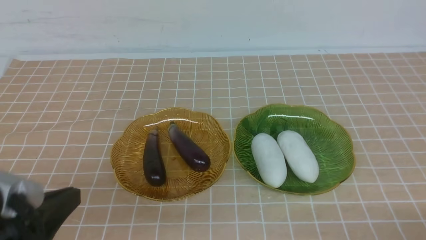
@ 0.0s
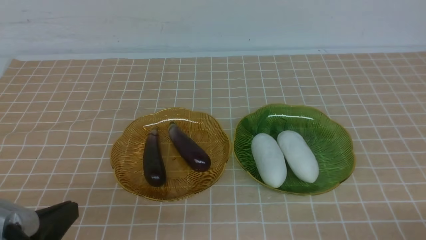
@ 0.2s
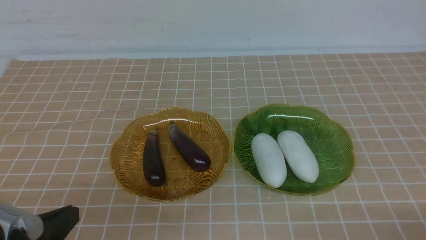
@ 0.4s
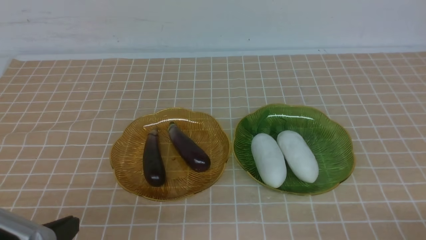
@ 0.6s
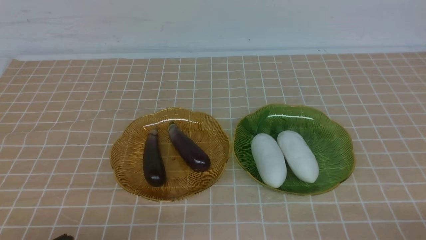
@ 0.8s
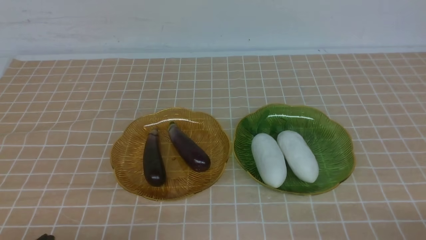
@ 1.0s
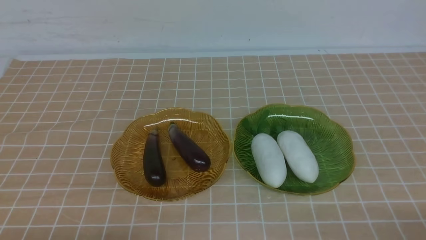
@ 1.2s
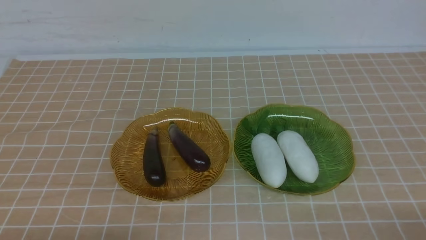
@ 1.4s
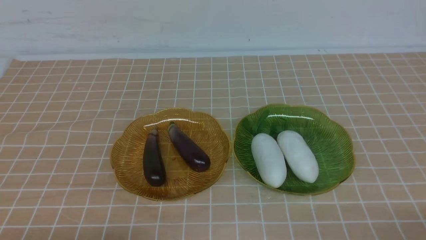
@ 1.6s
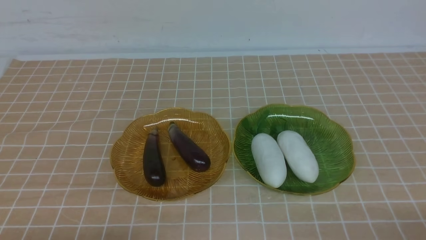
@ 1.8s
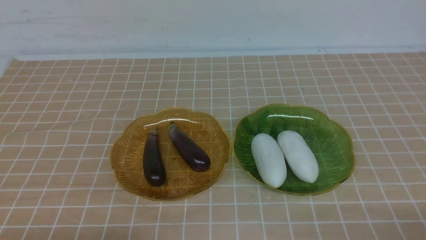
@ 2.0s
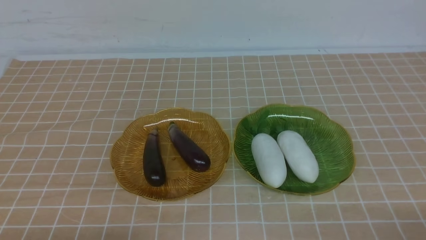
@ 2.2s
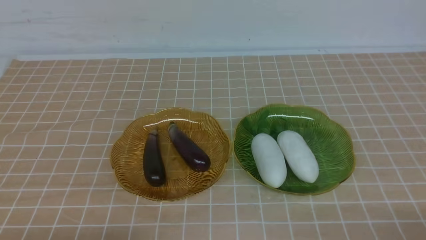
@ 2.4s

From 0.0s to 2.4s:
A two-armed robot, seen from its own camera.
From 0.0s to 1.2s: The left gripper moves downward, roughly 10 cm.
From 1.2s to 2.4s: Neither gripper changes place.

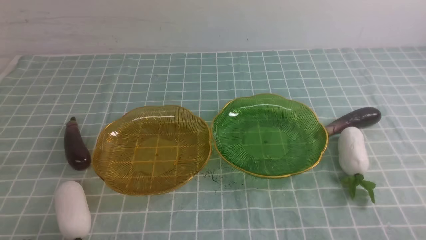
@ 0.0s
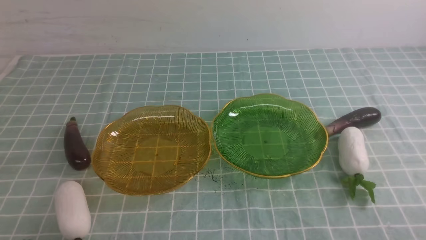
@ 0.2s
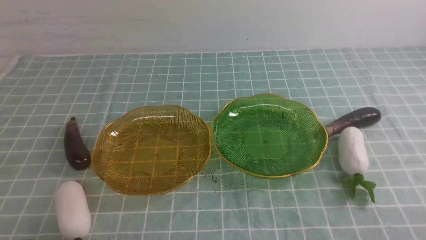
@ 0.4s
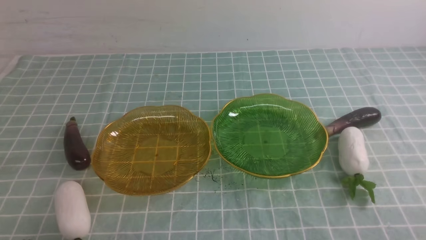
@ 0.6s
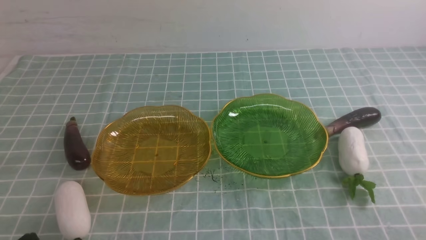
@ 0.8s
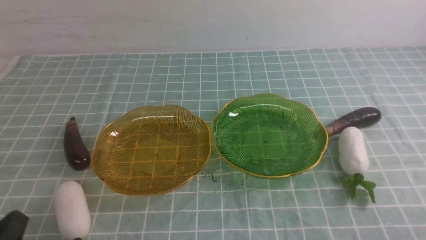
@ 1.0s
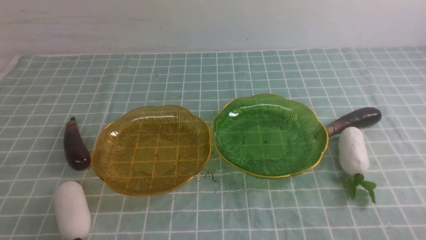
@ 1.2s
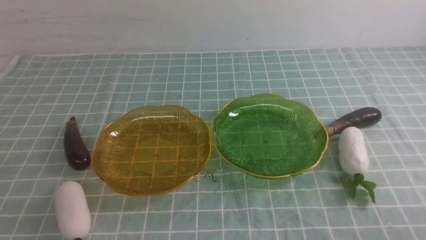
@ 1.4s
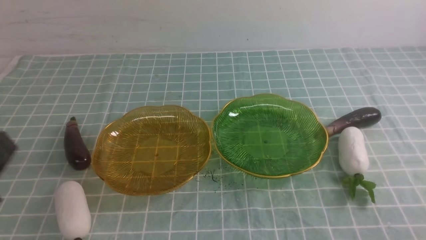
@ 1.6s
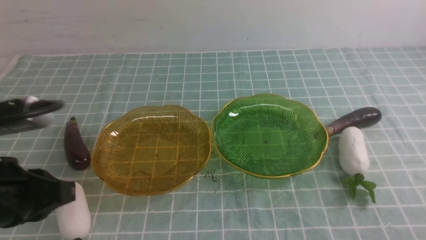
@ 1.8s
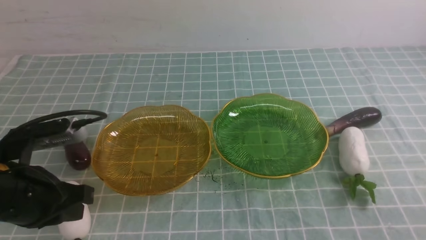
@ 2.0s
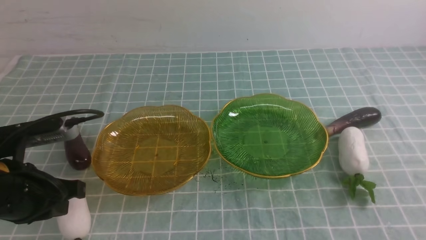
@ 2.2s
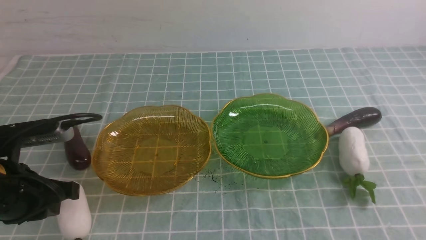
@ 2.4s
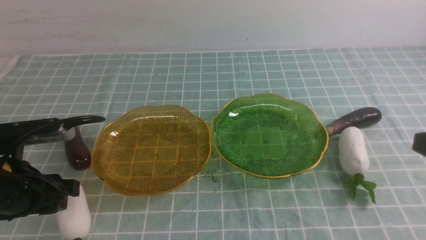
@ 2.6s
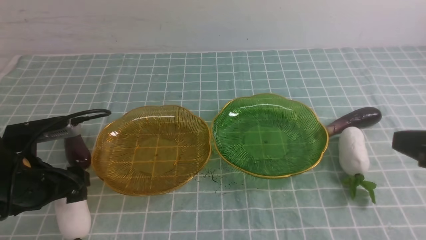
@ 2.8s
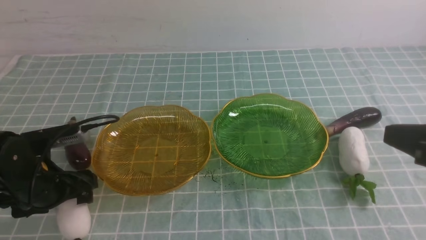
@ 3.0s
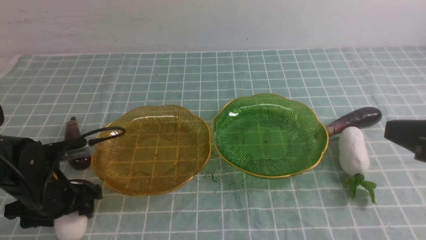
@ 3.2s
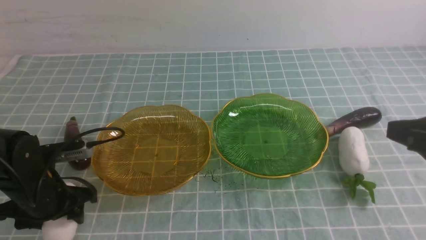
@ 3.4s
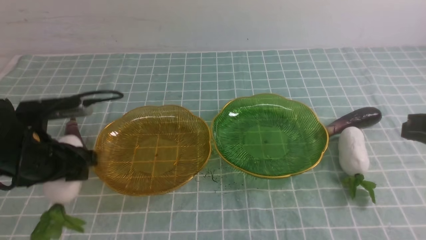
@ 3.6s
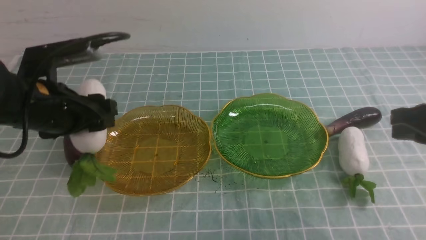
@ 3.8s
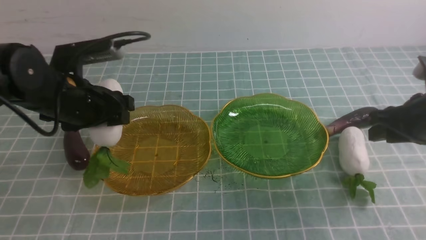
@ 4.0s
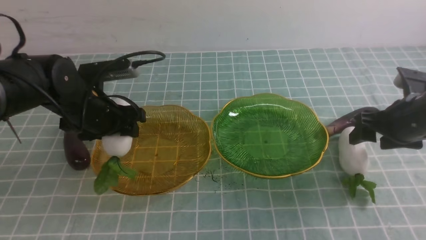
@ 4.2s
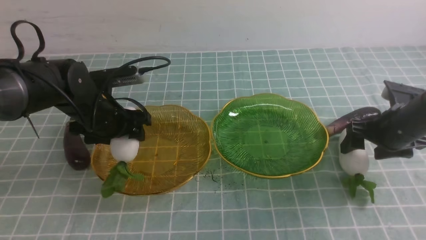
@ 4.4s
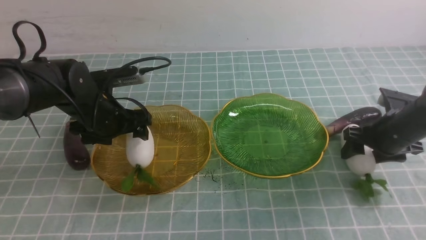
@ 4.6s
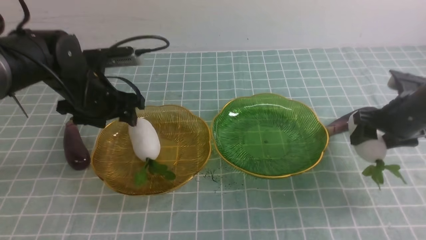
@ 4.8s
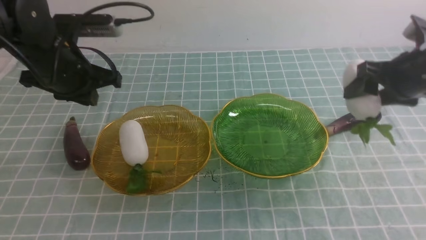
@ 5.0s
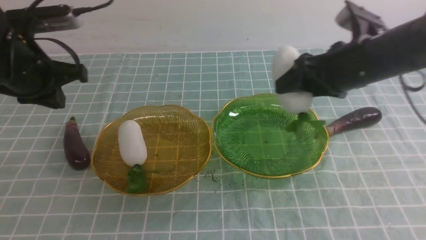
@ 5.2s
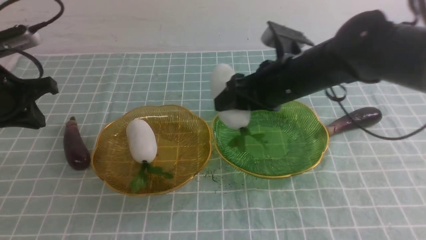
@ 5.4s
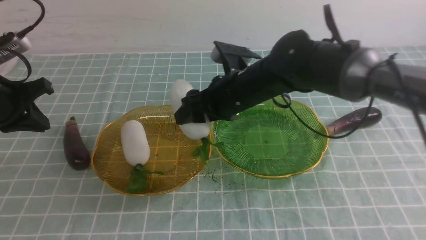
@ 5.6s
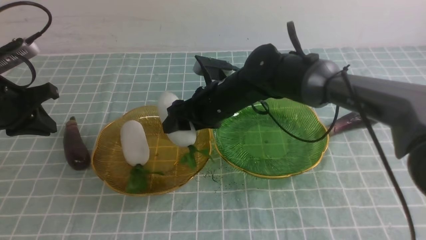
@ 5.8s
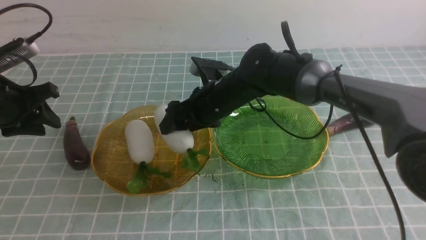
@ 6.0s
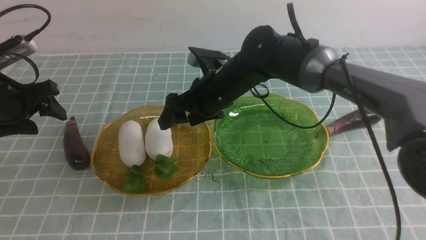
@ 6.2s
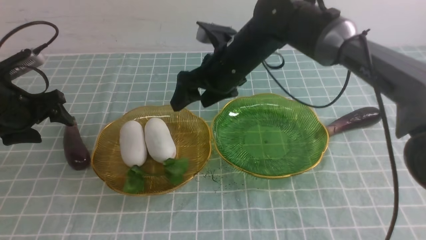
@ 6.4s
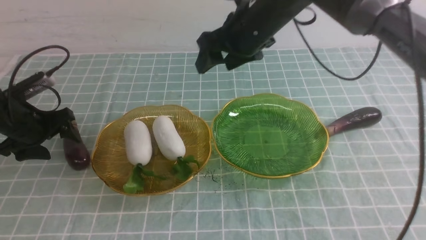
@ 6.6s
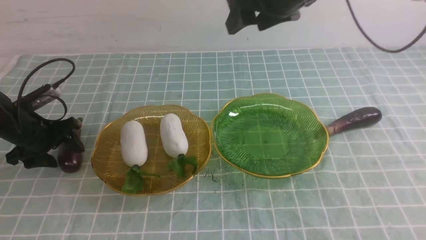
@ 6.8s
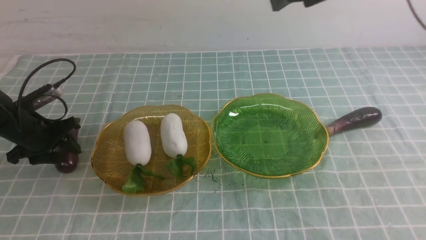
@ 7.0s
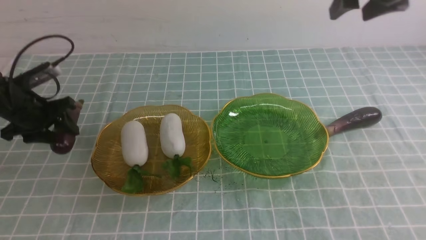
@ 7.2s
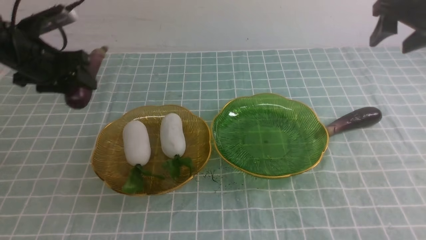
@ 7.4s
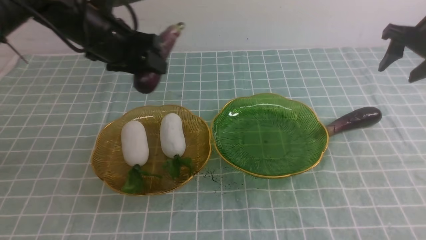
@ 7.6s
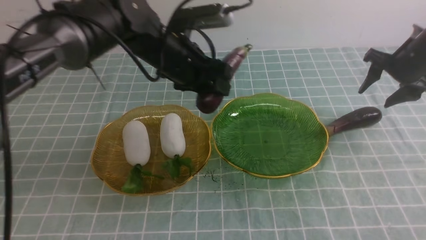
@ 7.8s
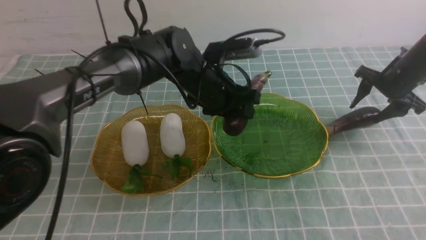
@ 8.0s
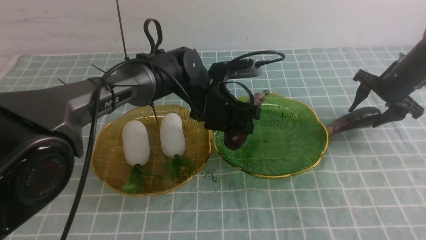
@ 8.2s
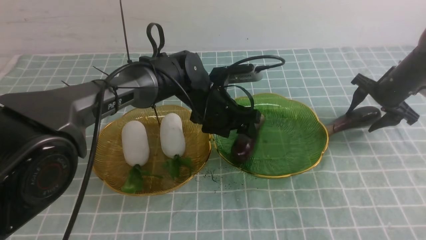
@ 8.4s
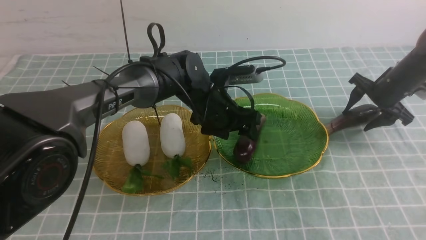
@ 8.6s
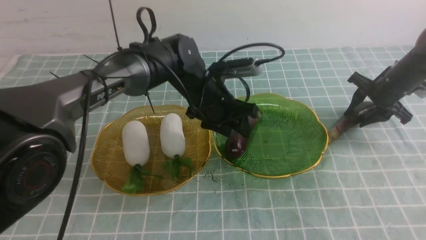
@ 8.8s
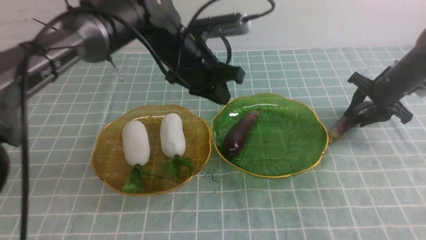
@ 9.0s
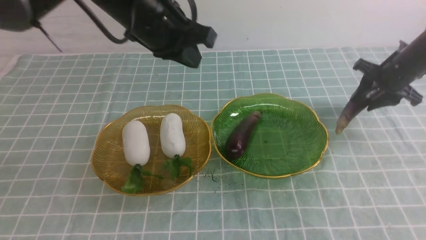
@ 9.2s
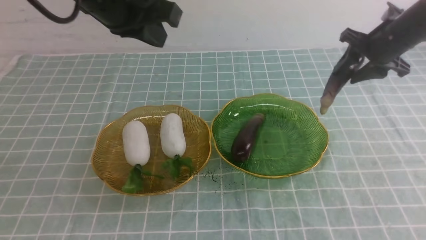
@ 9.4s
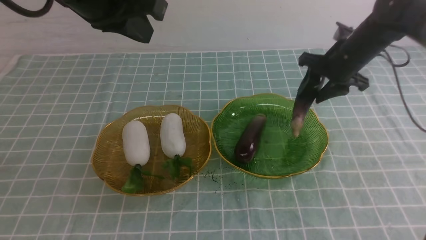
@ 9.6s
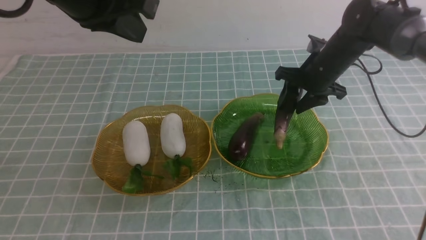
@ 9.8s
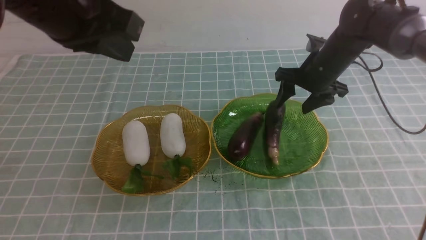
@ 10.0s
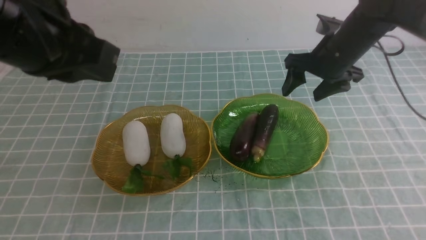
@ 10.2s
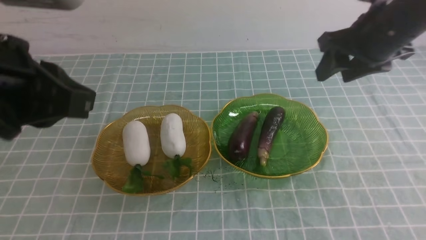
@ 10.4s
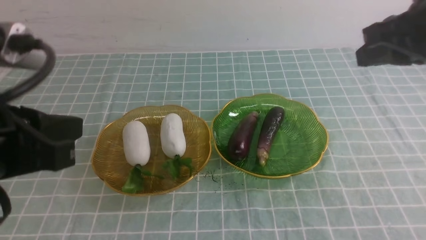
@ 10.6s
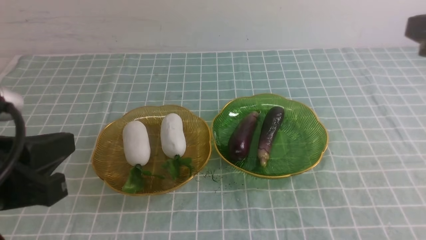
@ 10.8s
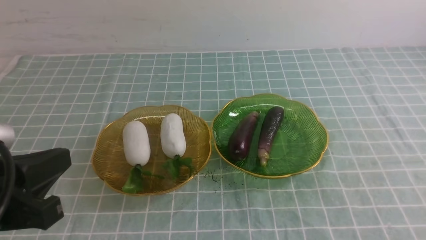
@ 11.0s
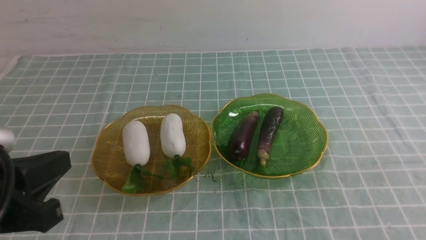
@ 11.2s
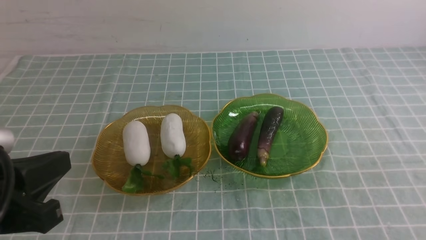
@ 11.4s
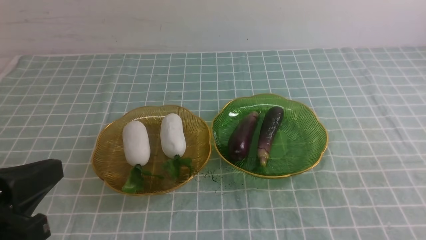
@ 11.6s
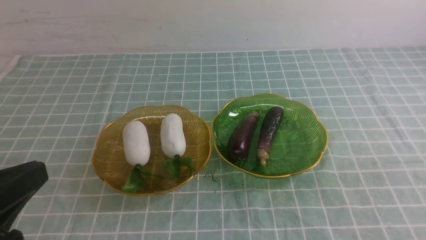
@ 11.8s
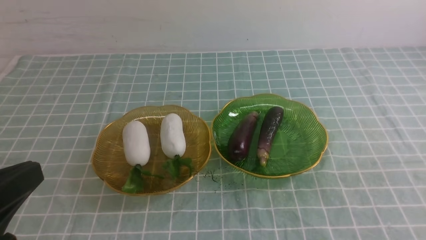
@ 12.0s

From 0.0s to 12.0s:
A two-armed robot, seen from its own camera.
Step, from 0.0s to 4.2s: use the left arm to grab a radish and put it into the left plate.
Step, from 4.4s to 6.0s: use the right arm to grab a radish and put it into the left plate.
Step, from 6.2s to 8.4s: use the left arm to grab an eggplant and put it into the right plate.
Step, from 8.6s to 10.0s: use the right arm to grab an eggplant and put it into the right plate.
From 1.6s to 3.0s: The left gripper shifts some 20 cm forward and downward, and opens its fingers; the right gripper shifts some 15 cm upward and forward.
From 3.0s to 4.4s: The right gripper shifts about 25 cm forward and downward, and opens up. The left gripper travels forward and to the right by about 15 cm.
From 4.4s to 6.0s: The right gripper shifts approximately 30 cm to the left; the left gripper moves to the left and upward, some 15 cm, and closes.
From 6.0s to 7.6s: The right gripper heads to the right, covering approximately 35 cm. Meanwhile the left gripper is displaced to the right and forward by approximately 15 cm, and opens, then closes once more.
From 7.6s to 9.0s: The right gripper travels downward by roughly 15 cm. The left gripper heads to the right, covering approximately 15 cm.
From 9.0s to 10.4s: The right gripper goes approximately 25 cm upward, to the left and backward. Meanwhile the left gripper is displaced backward, upward and to the left by about 30 cm.
From 10.4s to 12.0s: The right gripper is displaced backward by roughly 30 cm, and closes its fingers. Meanwhile the left gripper shifts some 15 cm backward and downward.

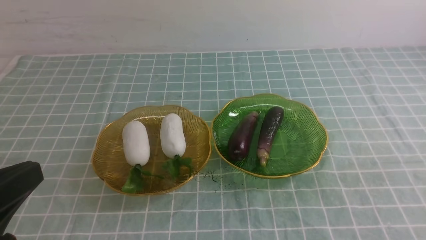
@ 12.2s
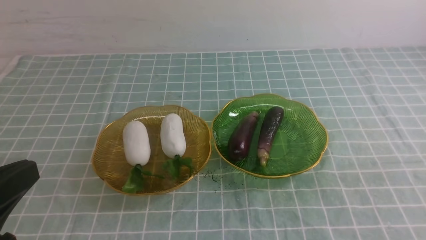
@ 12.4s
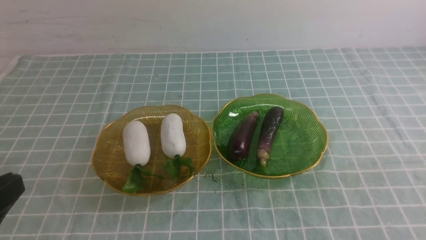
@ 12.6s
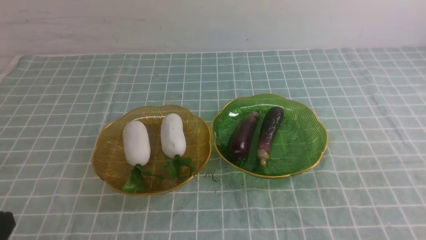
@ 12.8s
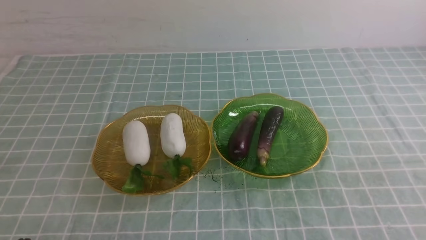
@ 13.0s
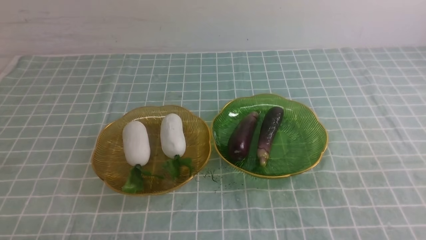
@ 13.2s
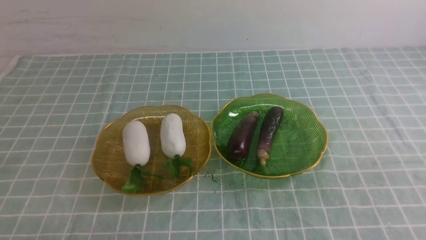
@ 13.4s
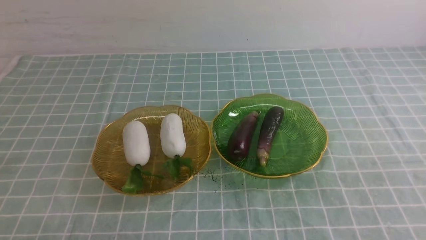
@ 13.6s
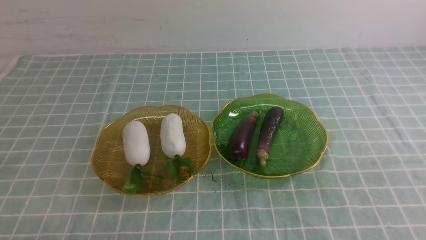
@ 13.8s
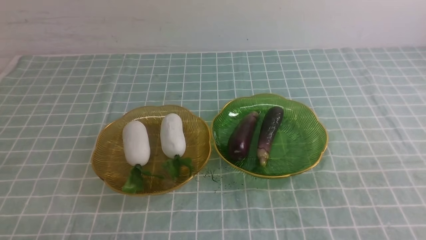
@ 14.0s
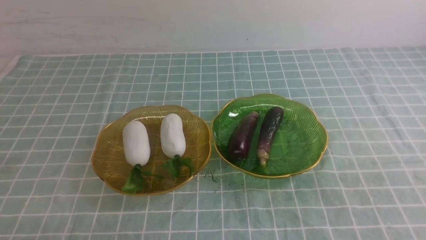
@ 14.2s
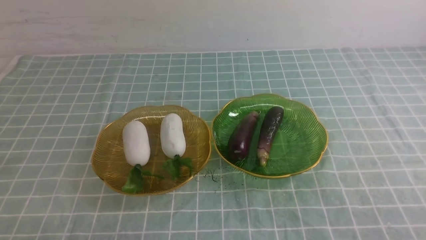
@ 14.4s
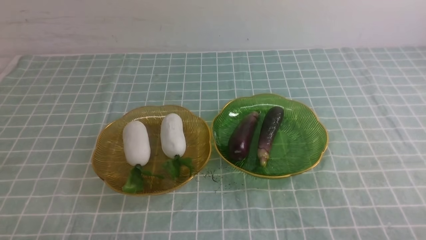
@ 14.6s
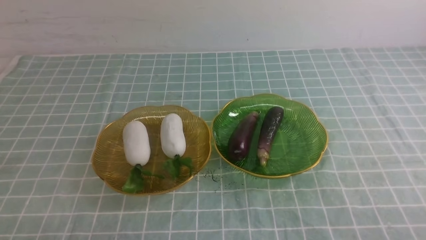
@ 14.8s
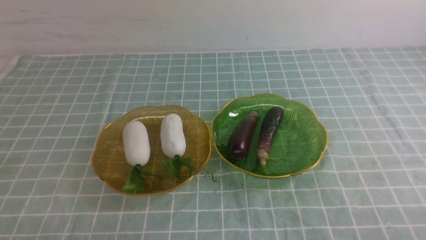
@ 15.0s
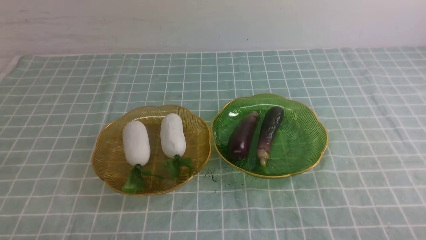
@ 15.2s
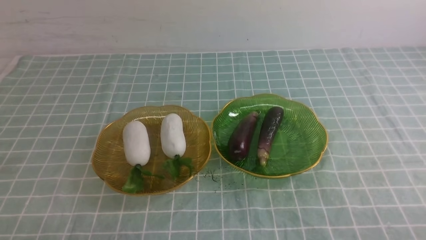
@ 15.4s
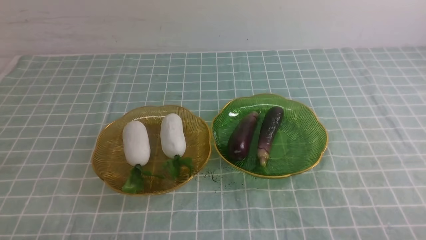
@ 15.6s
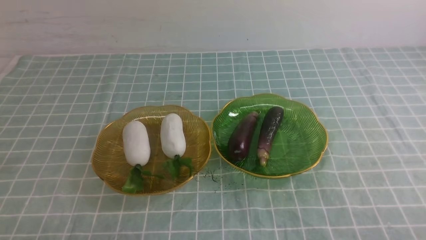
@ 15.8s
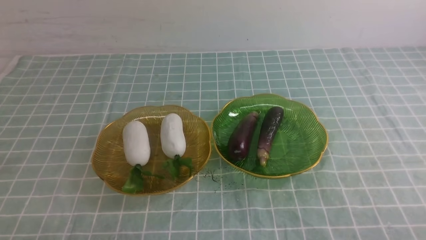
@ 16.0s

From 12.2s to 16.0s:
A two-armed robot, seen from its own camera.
From 12.2s to 13.4s: The left gripper travels downward by some 15 cm.
